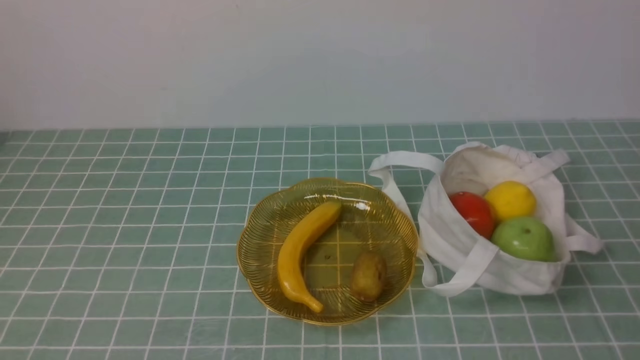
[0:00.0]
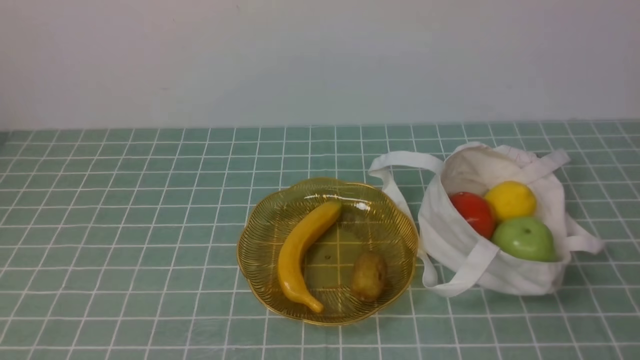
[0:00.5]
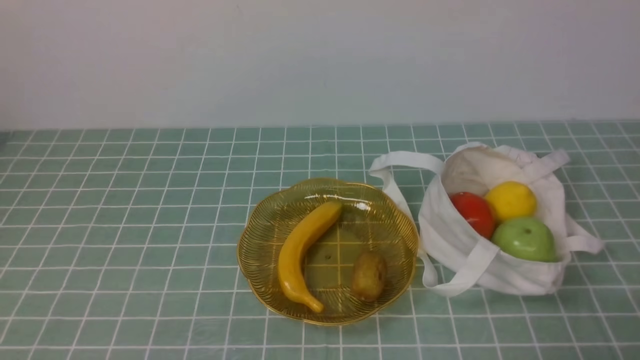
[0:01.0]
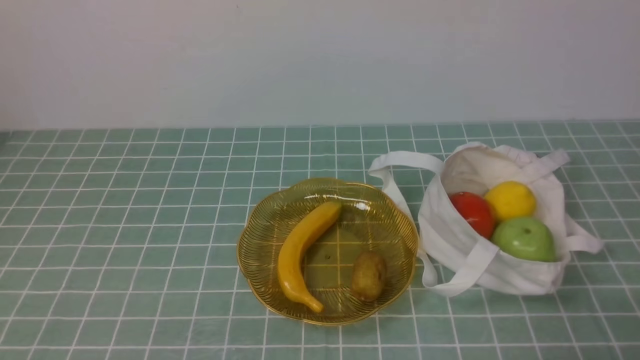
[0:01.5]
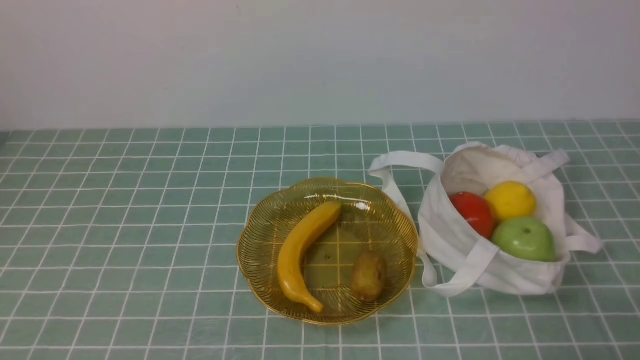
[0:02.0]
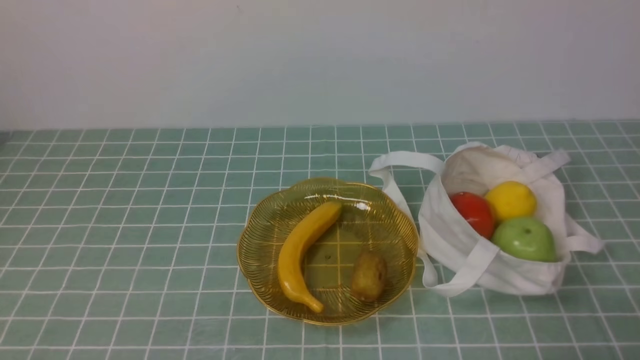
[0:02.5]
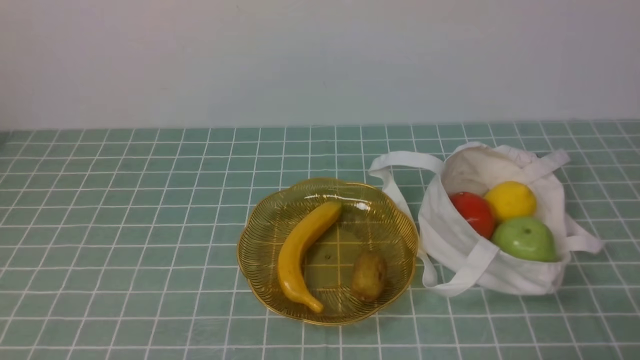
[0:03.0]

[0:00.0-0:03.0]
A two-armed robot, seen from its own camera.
0:01.5 to 0:03.0: Both grippers stay about where they are.
